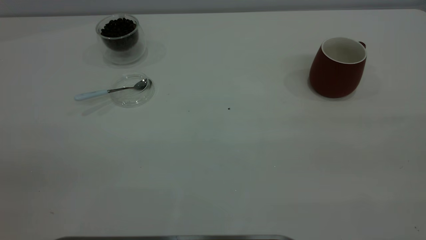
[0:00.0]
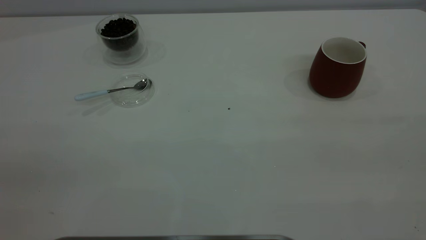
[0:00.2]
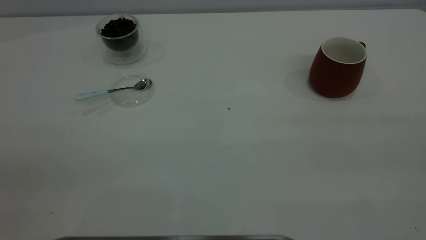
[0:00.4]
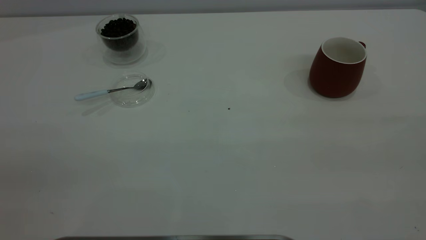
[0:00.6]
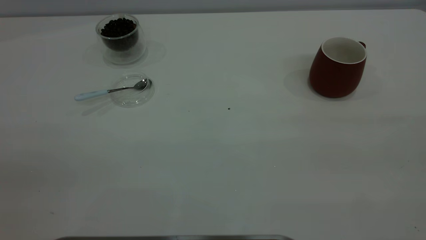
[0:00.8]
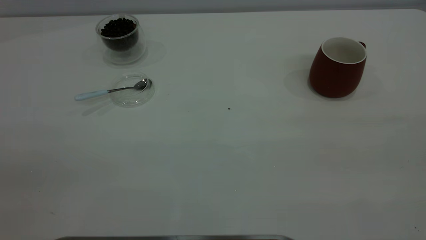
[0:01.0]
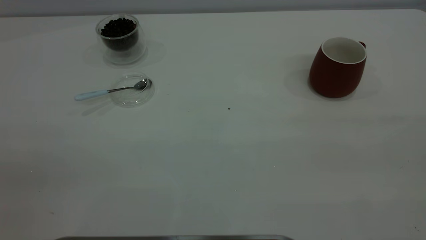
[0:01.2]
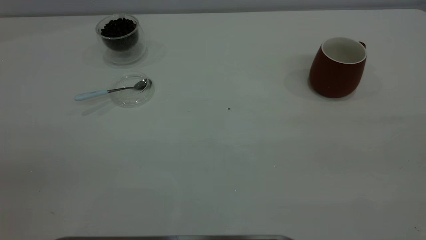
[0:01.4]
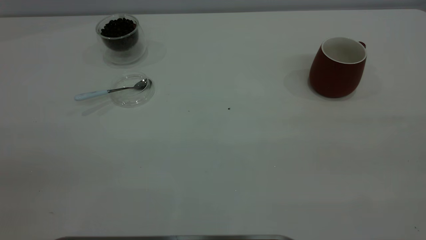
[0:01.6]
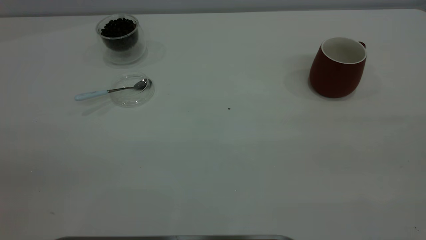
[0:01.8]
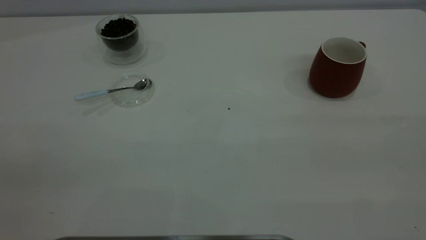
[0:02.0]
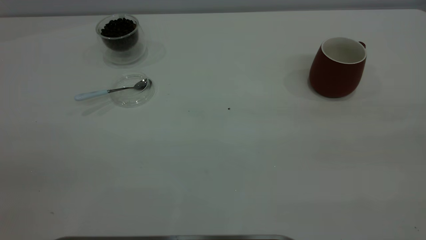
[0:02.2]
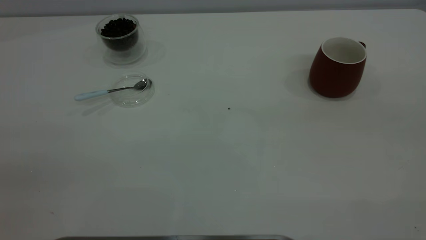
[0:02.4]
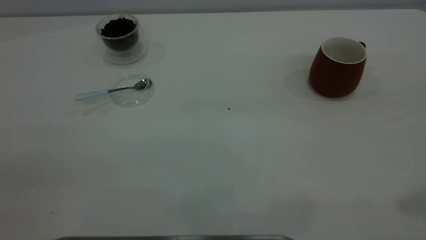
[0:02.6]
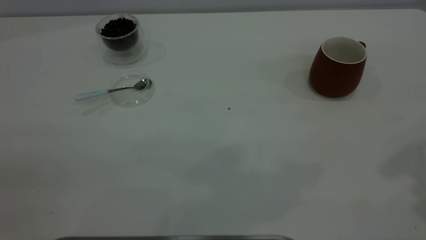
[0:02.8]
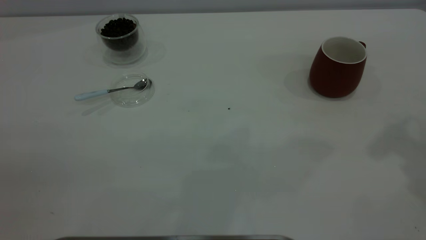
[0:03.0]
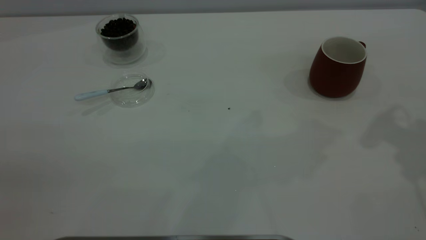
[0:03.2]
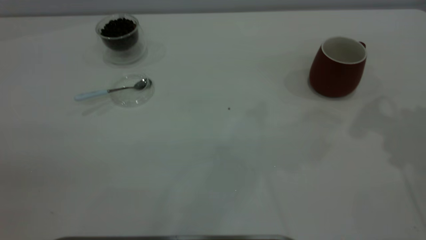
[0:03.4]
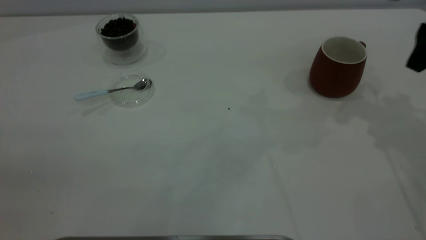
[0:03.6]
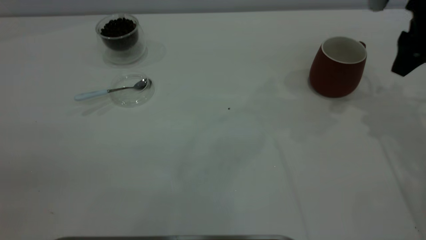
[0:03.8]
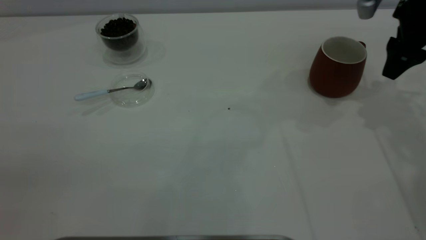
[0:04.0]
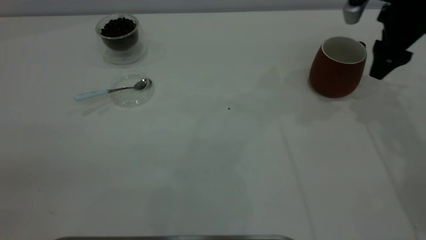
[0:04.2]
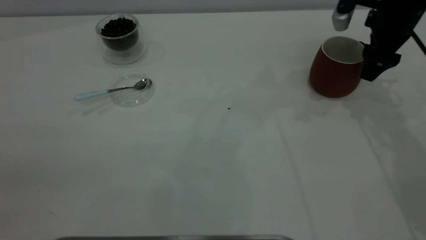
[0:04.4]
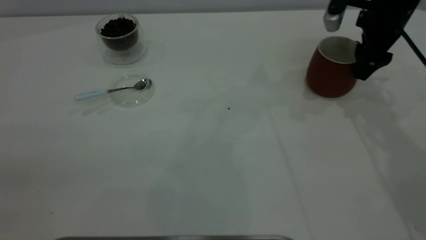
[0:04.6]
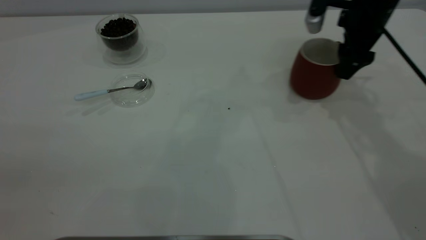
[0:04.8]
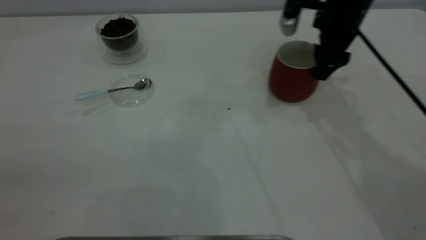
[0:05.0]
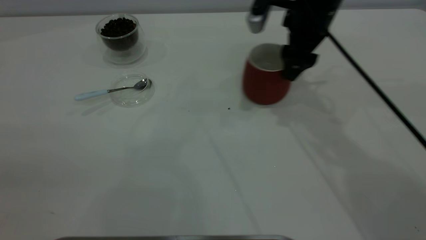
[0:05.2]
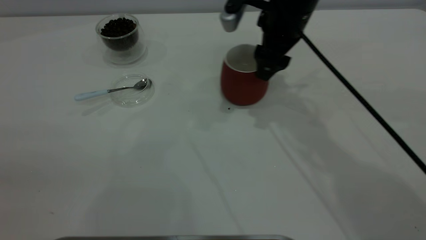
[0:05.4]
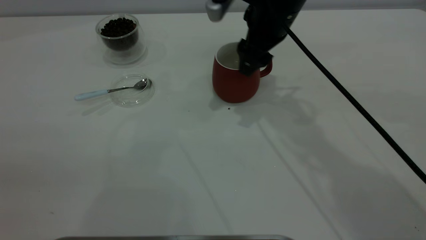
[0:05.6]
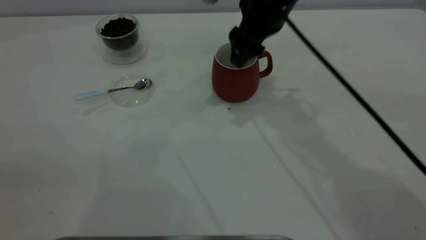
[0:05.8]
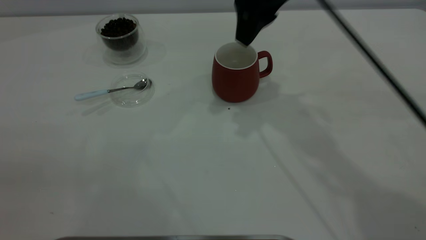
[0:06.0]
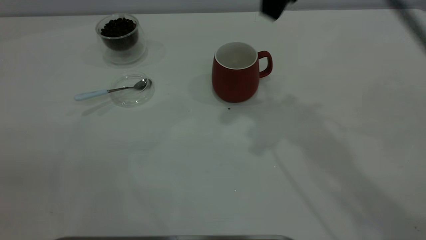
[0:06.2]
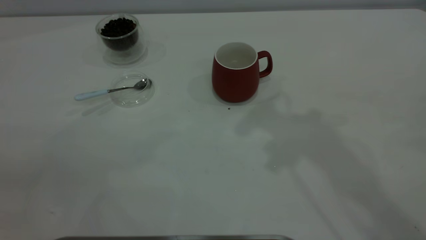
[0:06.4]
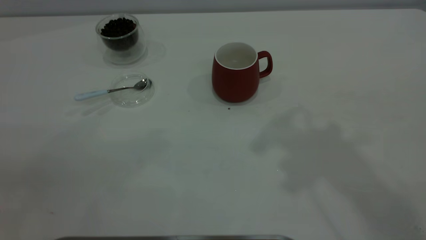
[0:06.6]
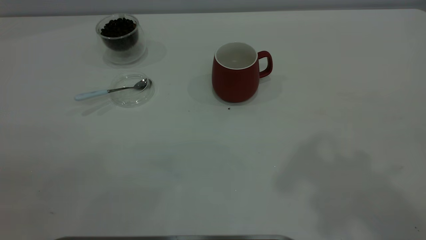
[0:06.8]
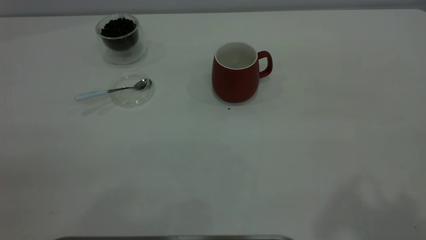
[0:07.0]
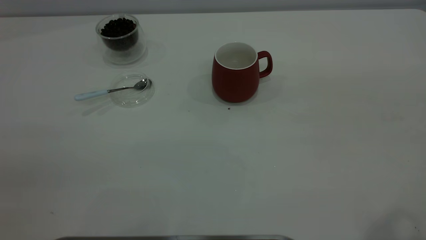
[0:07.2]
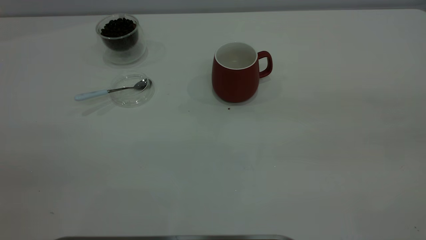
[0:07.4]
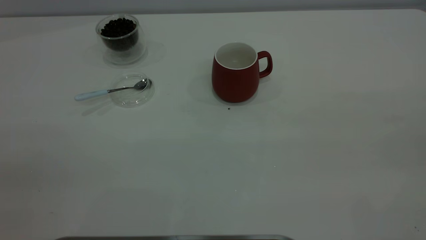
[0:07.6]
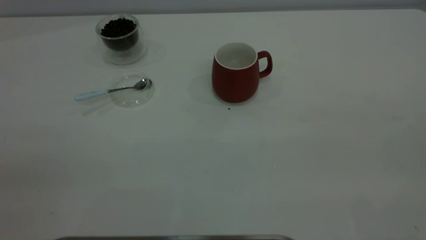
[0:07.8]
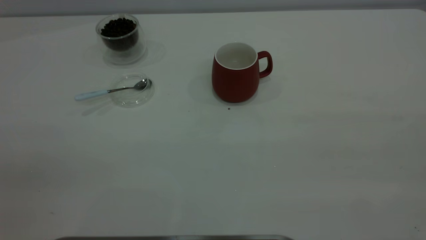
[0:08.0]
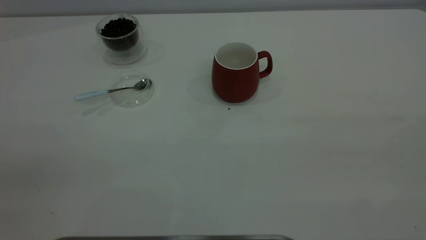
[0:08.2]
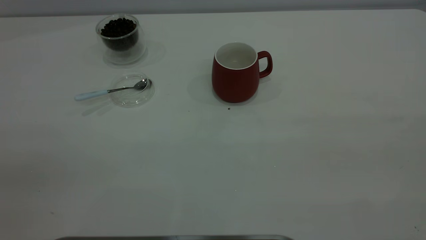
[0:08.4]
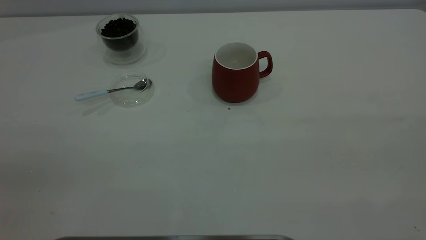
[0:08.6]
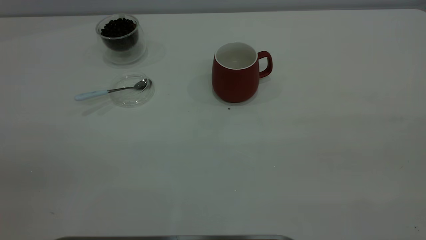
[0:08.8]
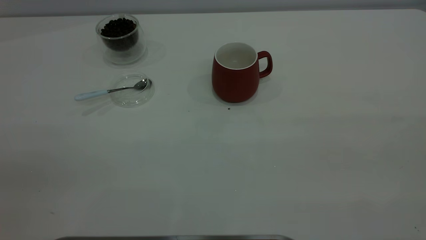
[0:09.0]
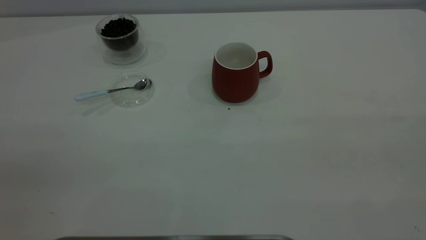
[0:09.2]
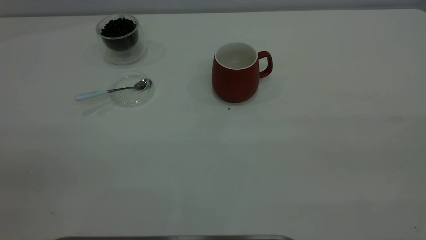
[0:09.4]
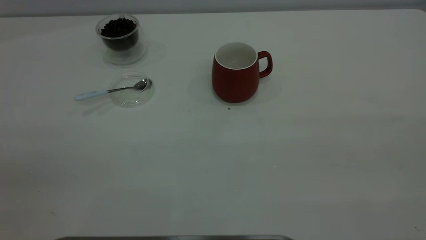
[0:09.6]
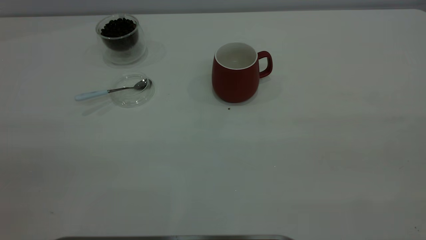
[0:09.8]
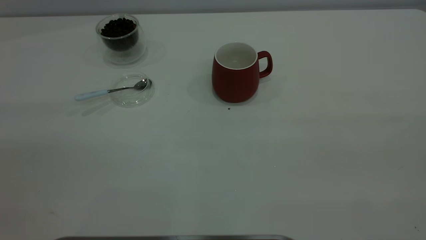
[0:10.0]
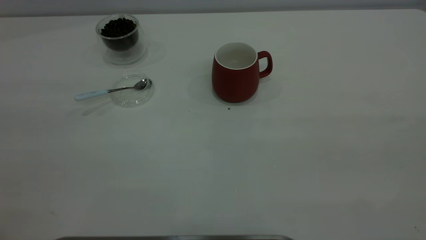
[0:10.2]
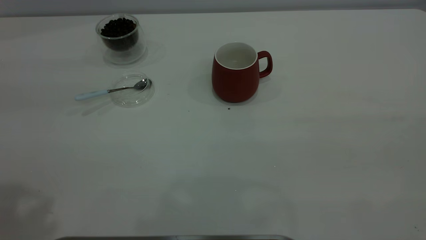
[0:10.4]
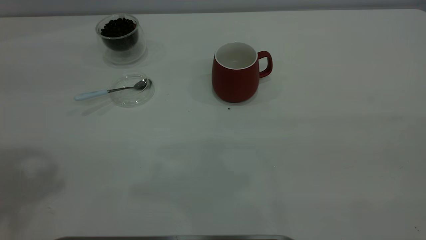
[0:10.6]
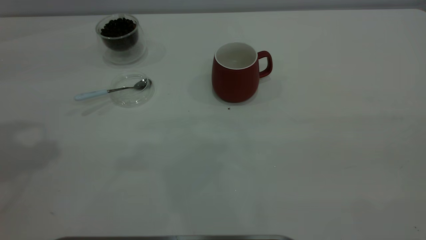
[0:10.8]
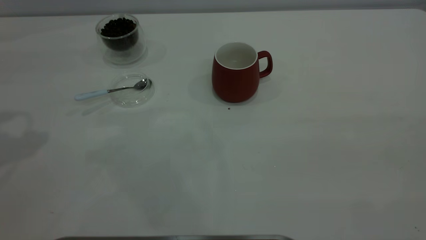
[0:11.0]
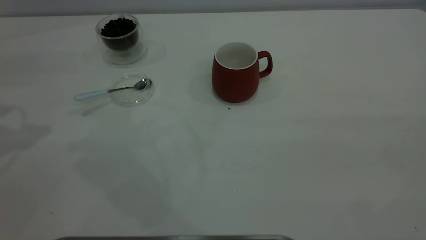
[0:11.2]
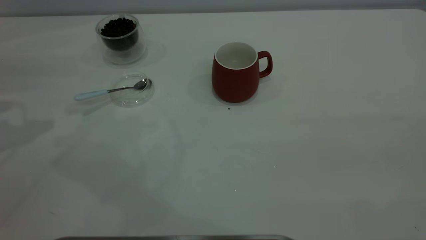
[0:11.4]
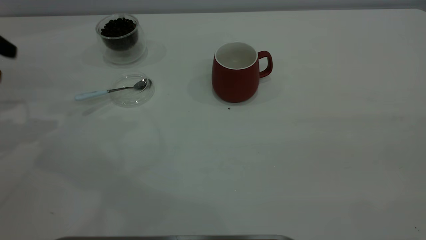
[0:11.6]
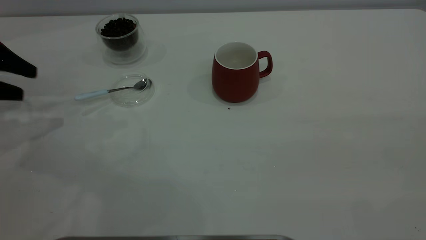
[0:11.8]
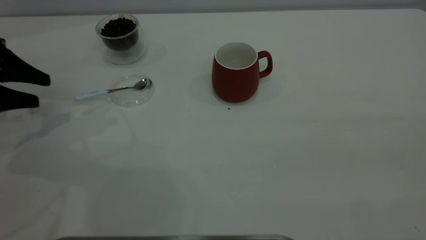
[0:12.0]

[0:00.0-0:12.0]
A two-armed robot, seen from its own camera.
Task of the whole recording: the right gripper place the red cup in the center of the table, the left gripper take the blue spoon from the cup lid and scoop out the coffee beans from the coffee cup and put them into the red cup, the left gripper put the spoon back into the cup lid.
Step, 0:00.0 to 0:05.8: Move the cup to the center of view.
0:00.0 to 0:01.6: Both grippers stay put.
0:03.0 to 0:04.4: The right gripper heads downward and forward, covering some 25 cm.
0:04.4 to 0:06.0: The right gripper is displaced to the left and upward by some 20 cm, and closes.
0:06.0 to 0:07.6: The right gripper is displaced backward and to the right by about 40 cm.
0:10.4 to 0:12.0: The left gripper is displaced downward and forward by about 30 cm.

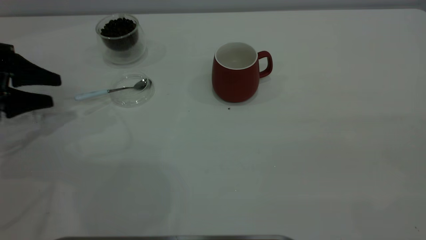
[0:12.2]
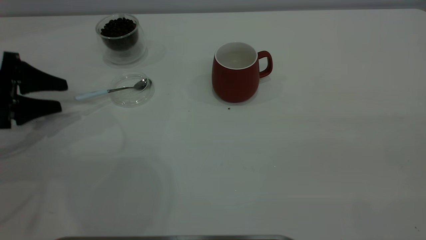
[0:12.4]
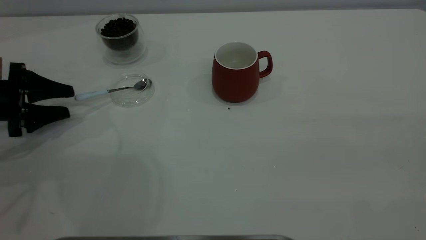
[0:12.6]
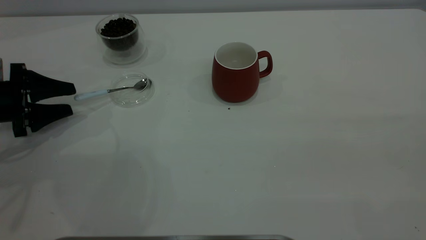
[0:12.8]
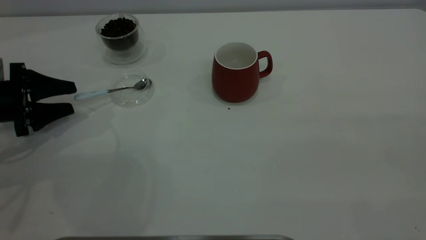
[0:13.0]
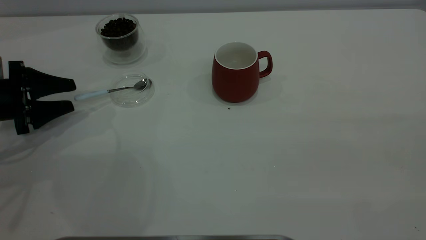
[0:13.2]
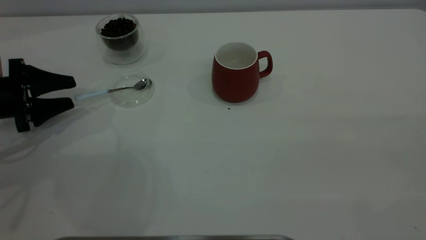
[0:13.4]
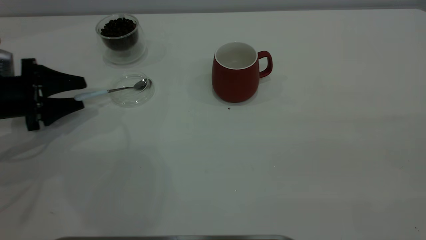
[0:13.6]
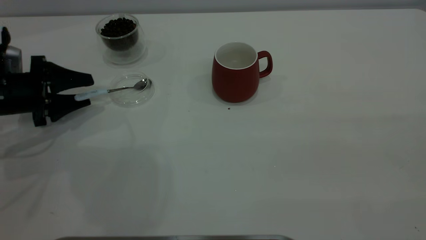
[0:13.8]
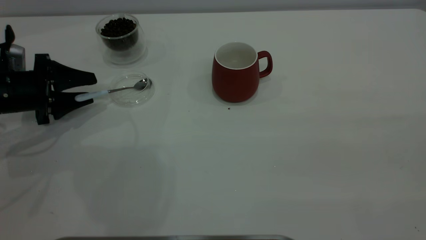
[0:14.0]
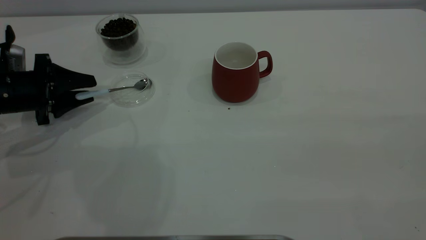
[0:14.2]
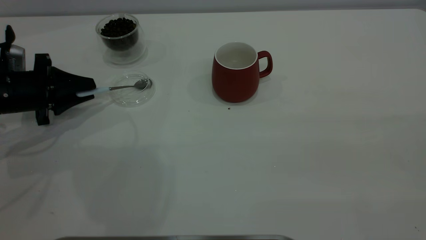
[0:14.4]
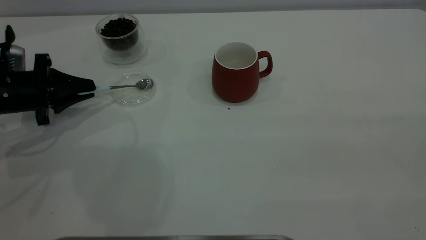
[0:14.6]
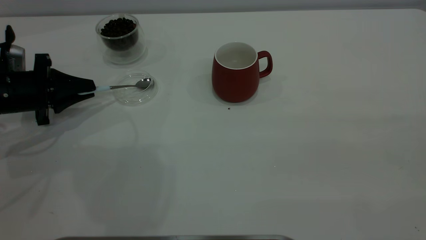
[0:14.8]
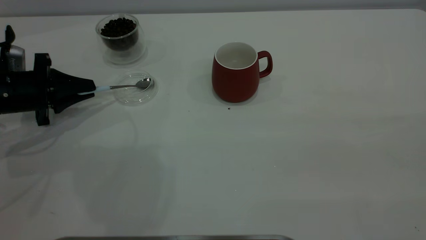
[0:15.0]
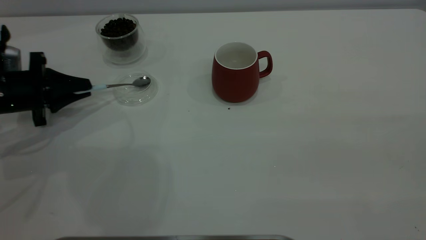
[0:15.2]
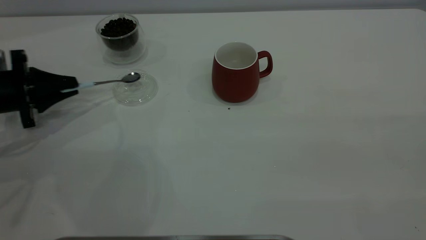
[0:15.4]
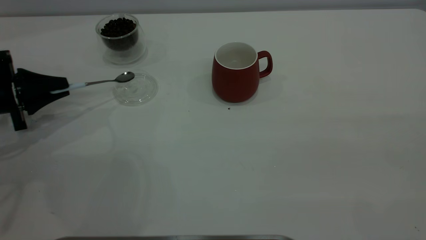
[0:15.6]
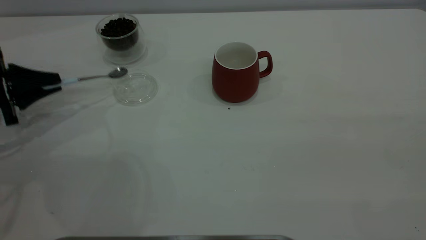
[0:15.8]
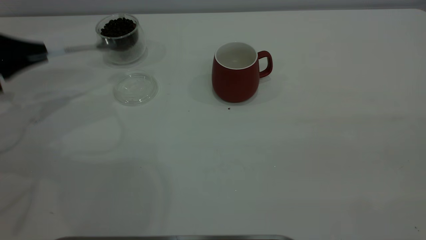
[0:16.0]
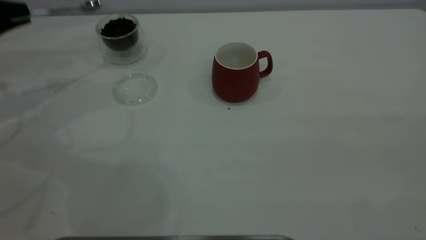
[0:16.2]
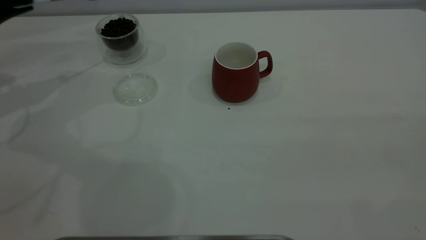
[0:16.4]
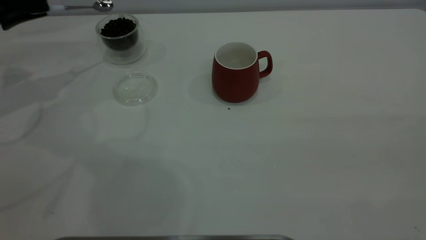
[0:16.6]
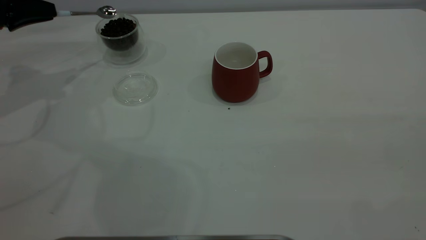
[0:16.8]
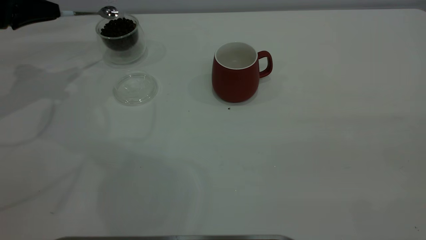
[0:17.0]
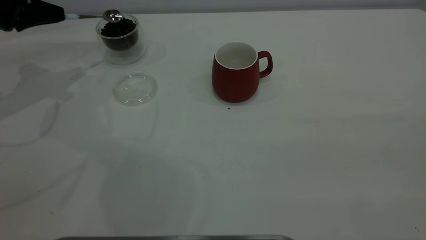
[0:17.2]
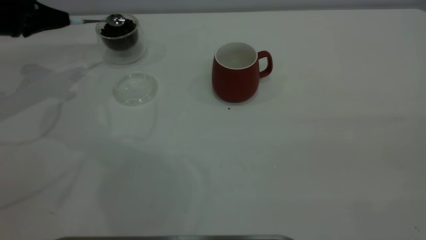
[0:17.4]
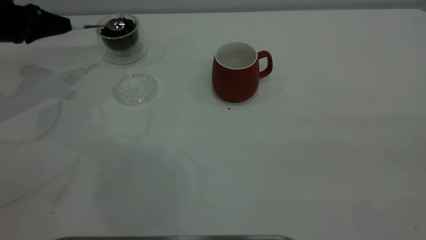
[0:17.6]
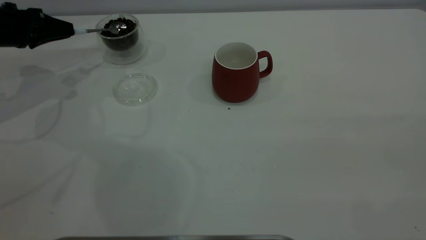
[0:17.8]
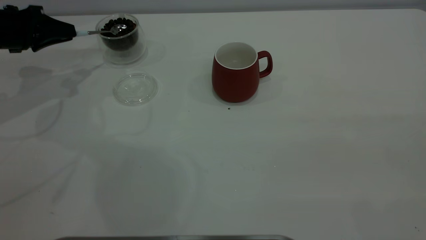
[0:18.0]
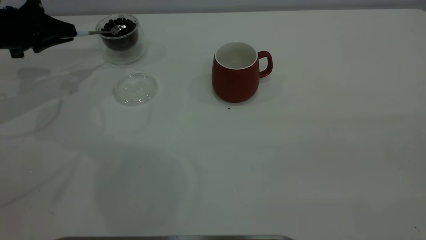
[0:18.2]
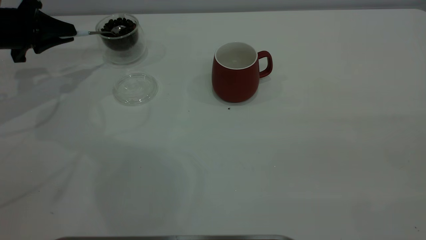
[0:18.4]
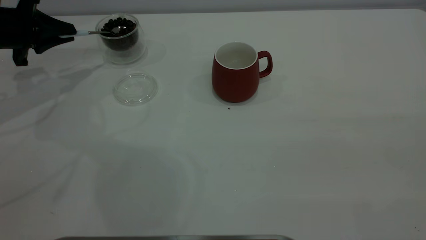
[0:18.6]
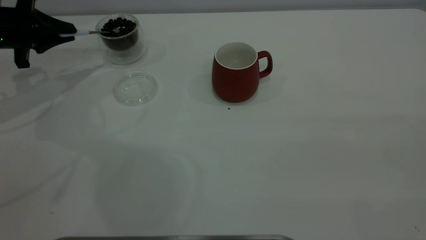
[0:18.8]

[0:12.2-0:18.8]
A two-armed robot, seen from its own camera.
Task of the whole recording: the right gripper place the red cup in the center of the table, the left gripper take the blue spoon from the cup lid and scoop out the coffee beans from the coffee cup and put them into the red cup, the left gripper put the spoon back into the cup lid.
Step, 0:12.2 to 0:16.0: Pick up the spoon.
0:12.2 to 0:13.8: The left gripper moves about 5 cm.
0:13.8 to 0:15.4: The left gripper closes.
0:15.4 to 0:17.2: The left gripper shifts some 15 cm upward and forward.
